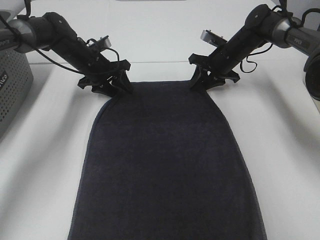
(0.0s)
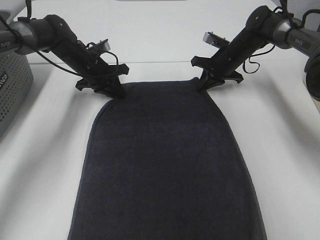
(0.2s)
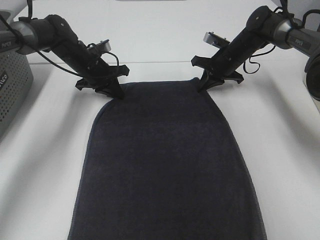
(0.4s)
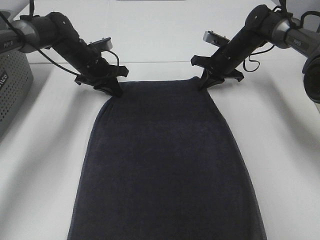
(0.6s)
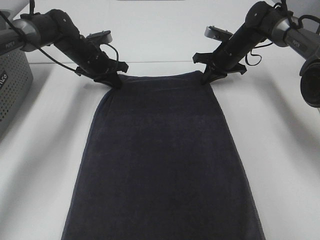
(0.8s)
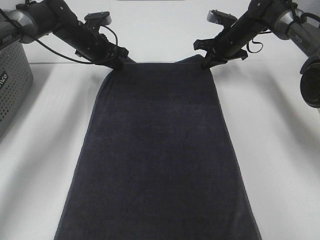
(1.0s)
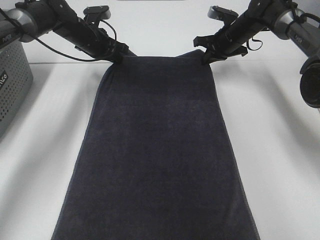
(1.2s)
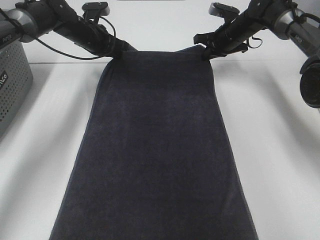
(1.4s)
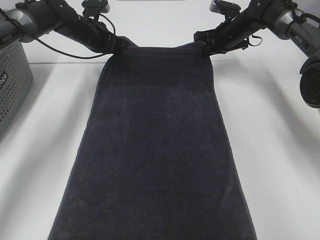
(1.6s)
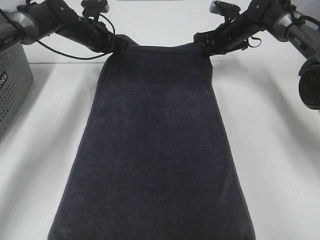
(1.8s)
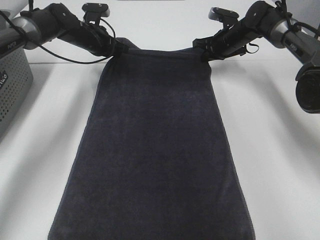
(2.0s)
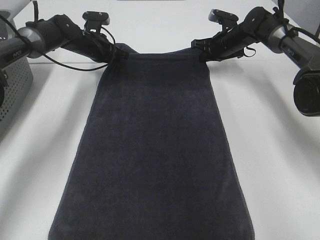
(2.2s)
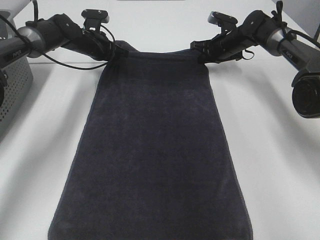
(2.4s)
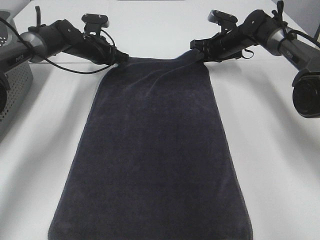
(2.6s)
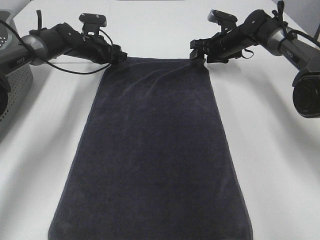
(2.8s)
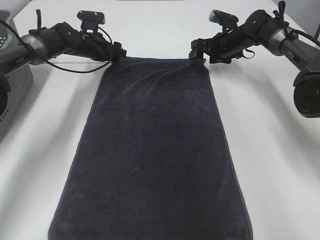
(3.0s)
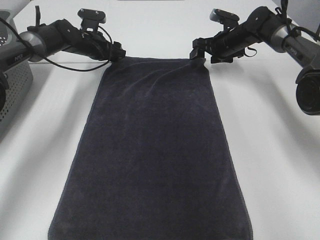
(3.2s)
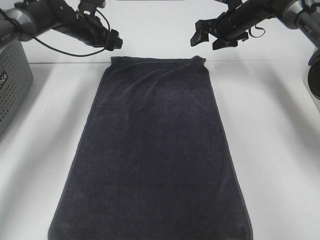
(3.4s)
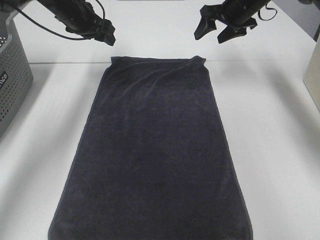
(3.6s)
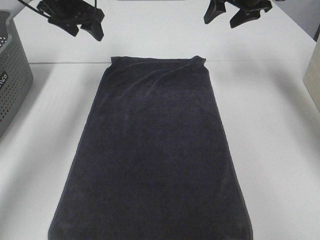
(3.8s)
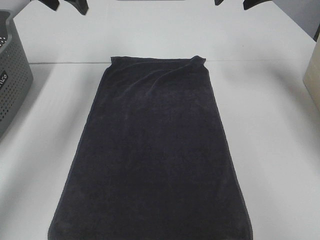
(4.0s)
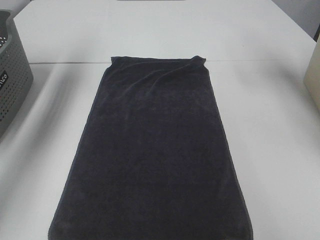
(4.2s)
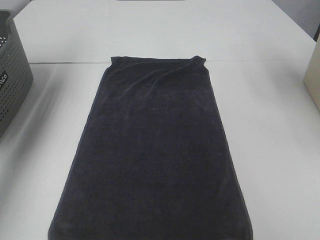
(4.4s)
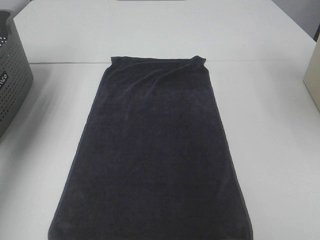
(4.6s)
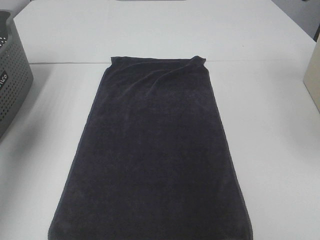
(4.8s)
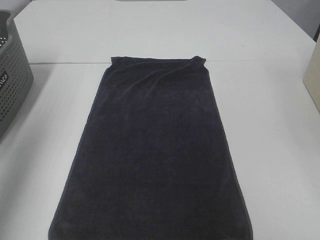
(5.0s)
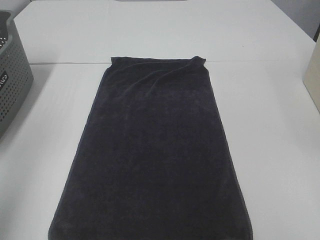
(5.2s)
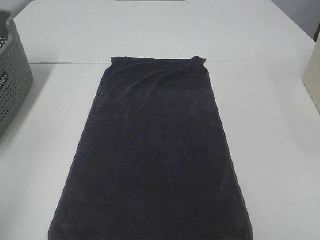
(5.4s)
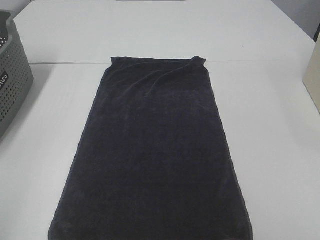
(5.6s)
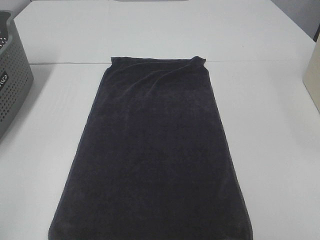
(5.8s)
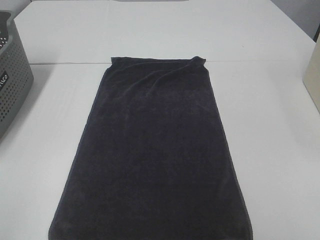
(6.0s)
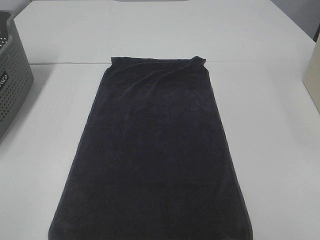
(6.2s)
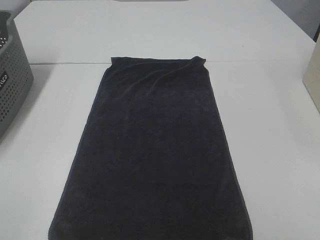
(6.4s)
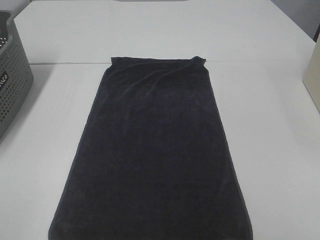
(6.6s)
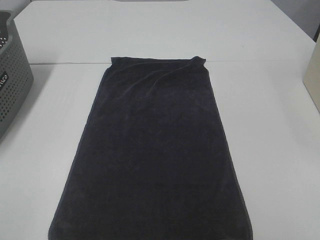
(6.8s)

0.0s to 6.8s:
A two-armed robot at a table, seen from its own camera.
Task of the whole recording: Remove the towel and place it.
0.0s to 1.4s: The right gripper moves about 5 cm, and closes its fingers; the left gripper moves upward, about 5 cm, and closes up.
1.4s to 2.8s: The left gripper shifts by some 5 cm, and opens; the right gripper opens up.
2.8s to 4.0s: Both grippers move upward, some 20 cm.
4.0s to 5.4s: The grippers both shift backward by approximately 50 cm.

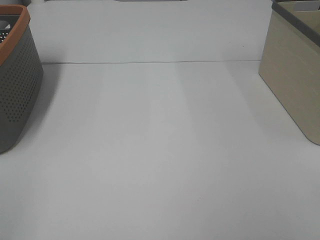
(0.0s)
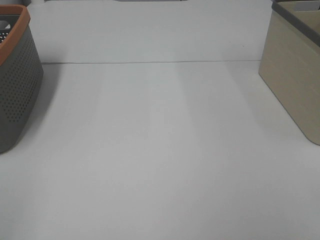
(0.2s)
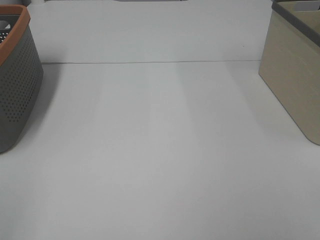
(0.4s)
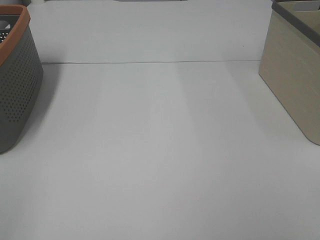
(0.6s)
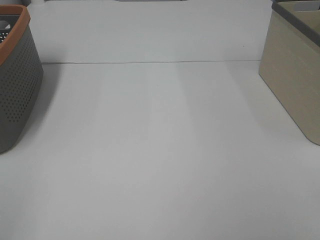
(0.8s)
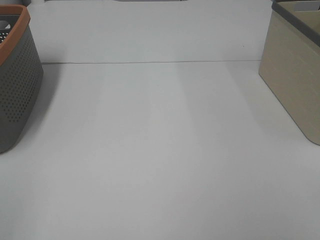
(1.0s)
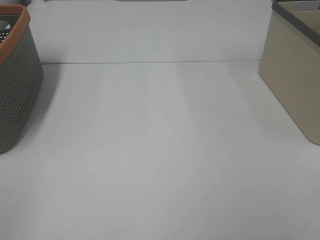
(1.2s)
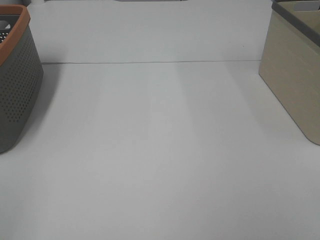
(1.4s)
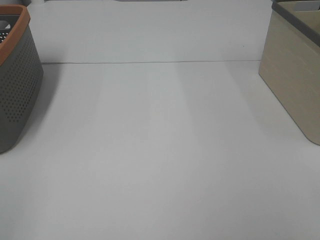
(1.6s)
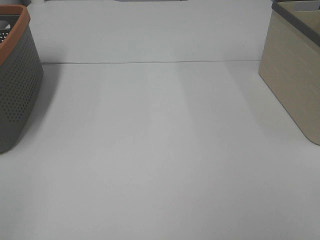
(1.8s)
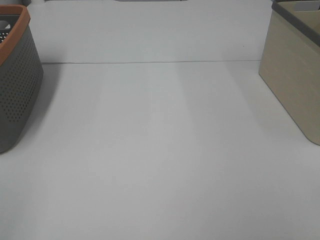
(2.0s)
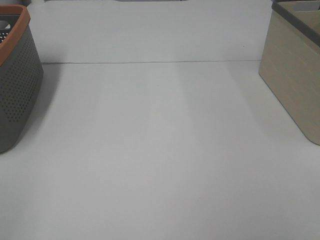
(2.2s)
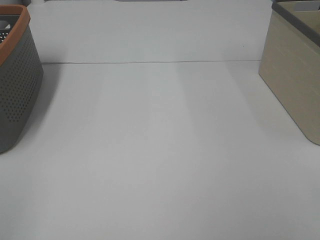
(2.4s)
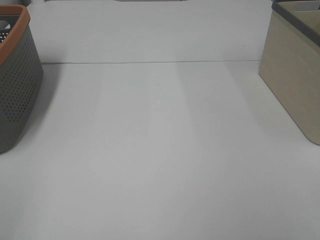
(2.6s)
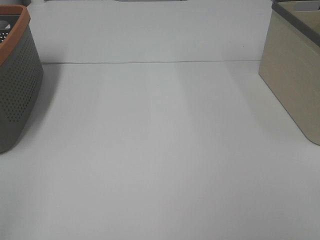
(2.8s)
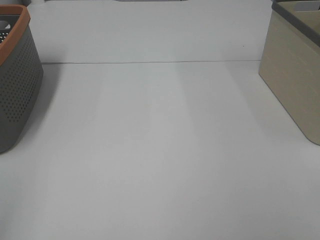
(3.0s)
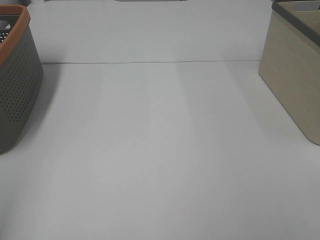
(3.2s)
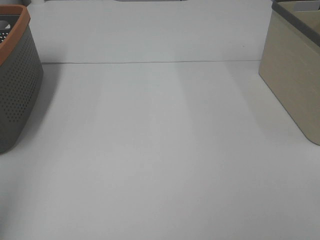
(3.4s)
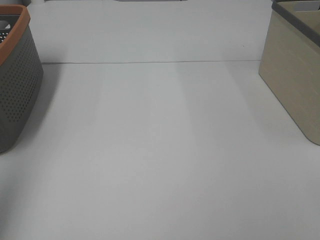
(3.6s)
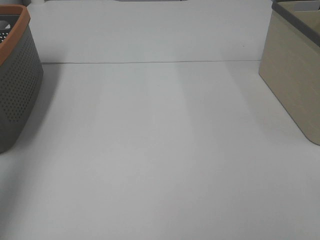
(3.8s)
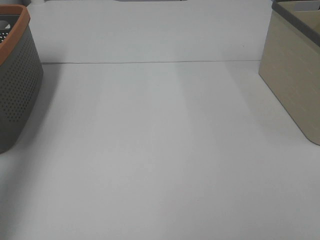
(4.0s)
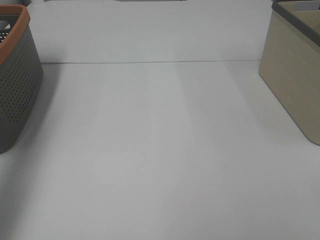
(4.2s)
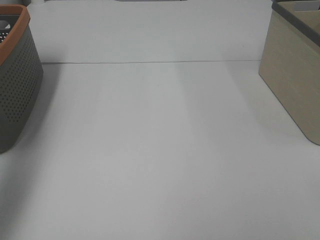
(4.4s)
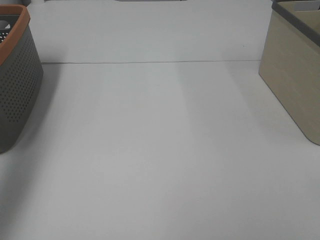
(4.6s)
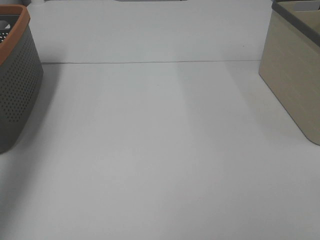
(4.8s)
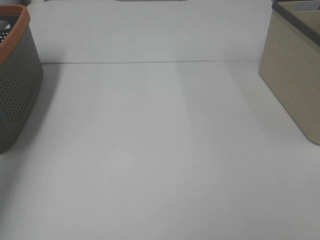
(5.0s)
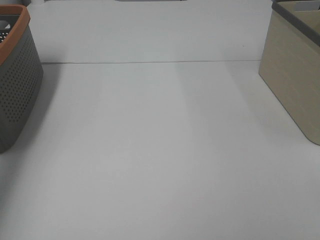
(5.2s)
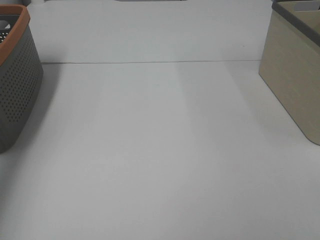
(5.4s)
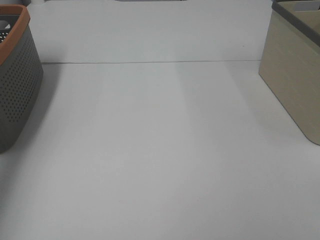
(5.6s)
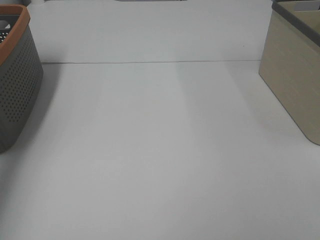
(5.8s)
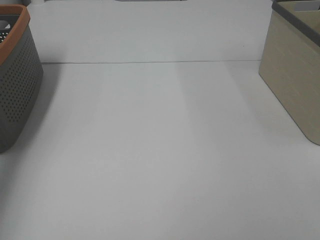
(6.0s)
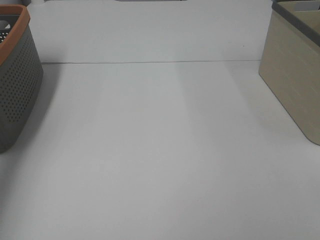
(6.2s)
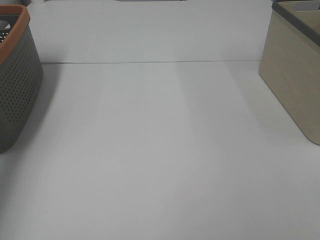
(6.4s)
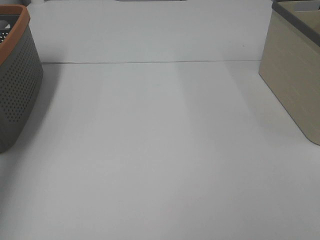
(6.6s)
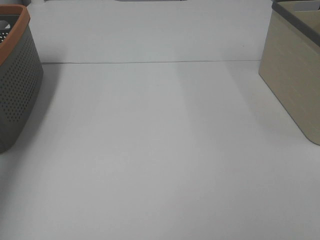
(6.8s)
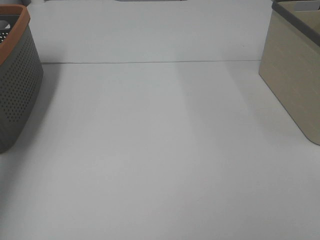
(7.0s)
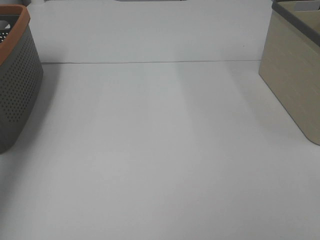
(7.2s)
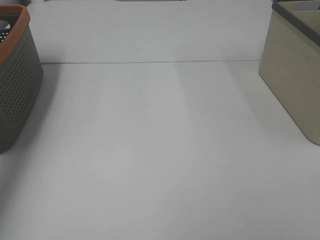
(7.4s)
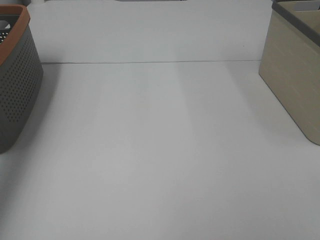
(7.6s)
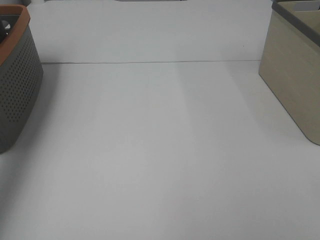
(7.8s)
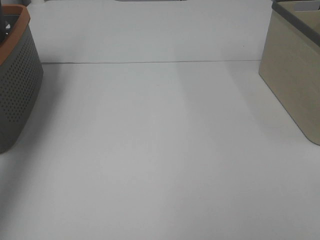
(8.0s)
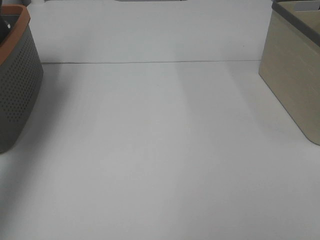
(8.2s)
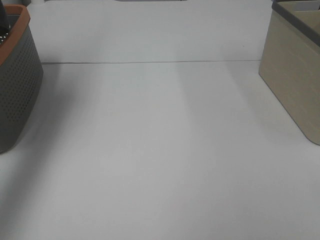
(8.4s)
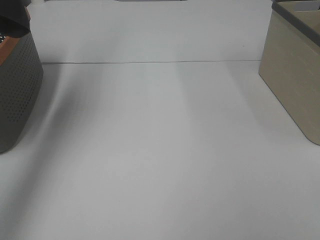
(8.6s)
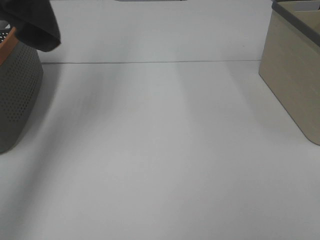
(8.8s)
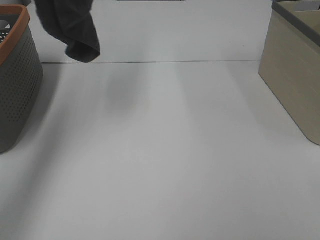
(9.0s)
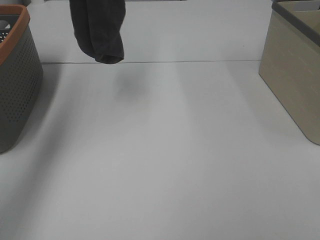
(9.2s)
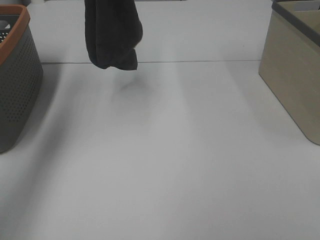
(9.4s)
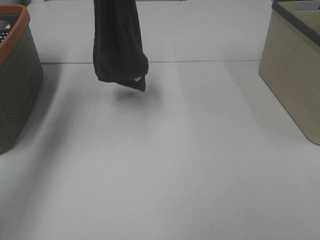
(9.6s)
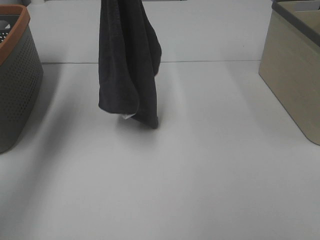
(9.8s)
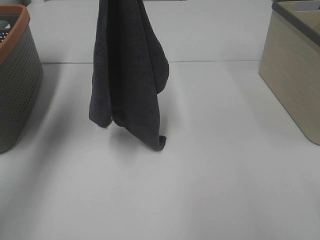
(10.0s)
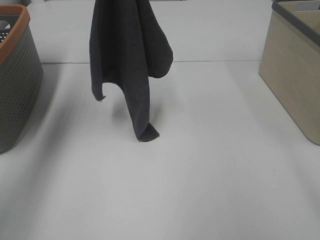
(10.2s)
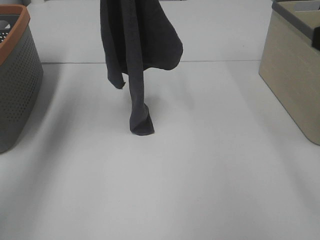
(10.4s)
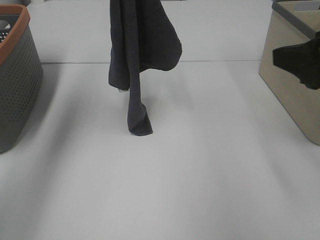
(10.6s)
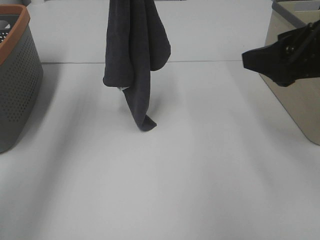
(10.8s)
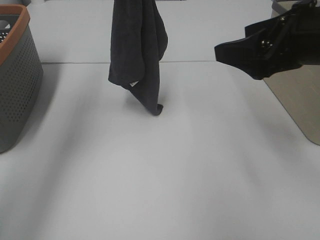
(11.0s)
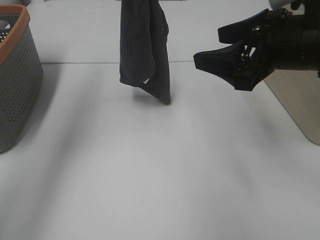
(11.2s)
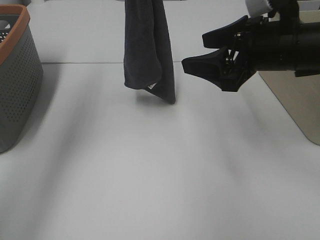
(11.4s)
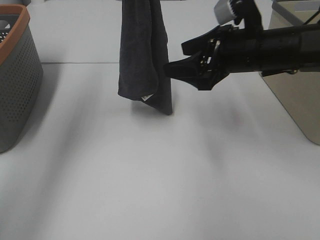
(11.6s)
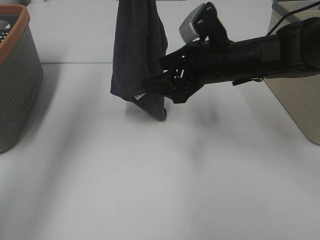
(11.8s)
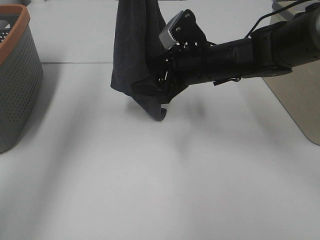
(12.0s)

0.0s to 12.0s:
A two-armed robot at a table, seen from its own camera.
Task of the whole recording: Remove the towel and place it.
Step, 8.6s to 11.6s: Right hand: grab a corner of the grey towel and straighten it.
0.0s to 1.6s: Both grippers stay about where they are.
3.0s to 4.4s: The left gripper shifts roughly 25 cm forward.
4.4s to 6.0s: The left gripper travels downward and forward by some 15 cm.
7.6s to 9.0s: The left gripper travels upward and to the right by some 20 cm.
9.0s to 10.4s: The right gripper travels forward by some 15 cm. The left gripper shifts roughly 10 cm downward.
10.4s to 12.0s: The right gripper travels forward, to the left and downward by roughly 30 cm.

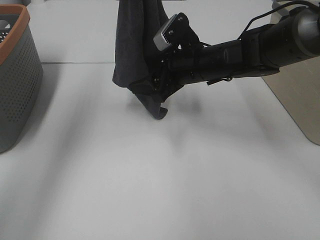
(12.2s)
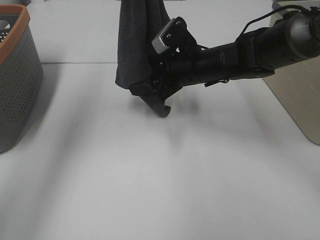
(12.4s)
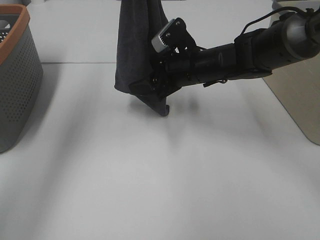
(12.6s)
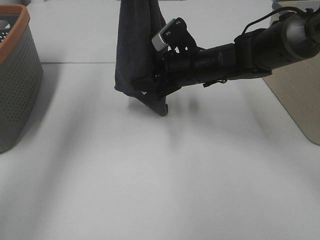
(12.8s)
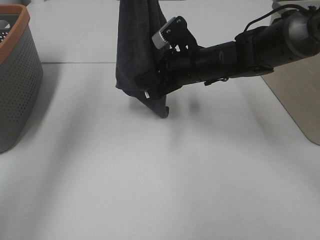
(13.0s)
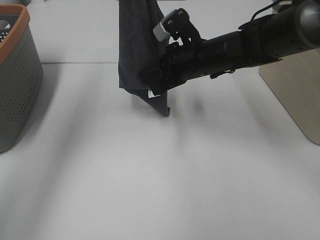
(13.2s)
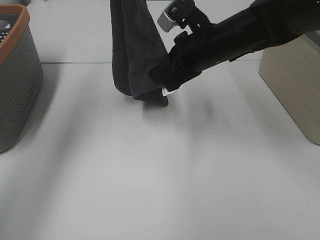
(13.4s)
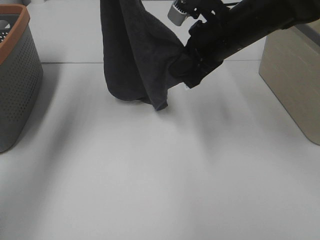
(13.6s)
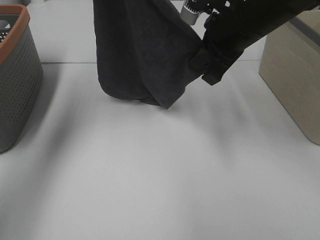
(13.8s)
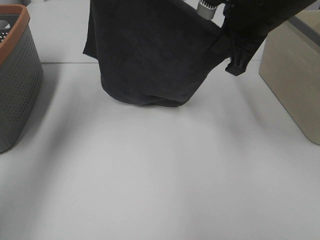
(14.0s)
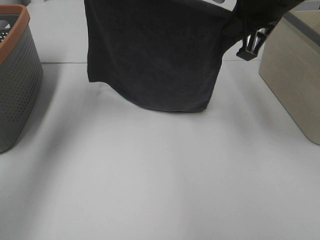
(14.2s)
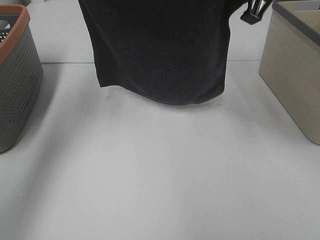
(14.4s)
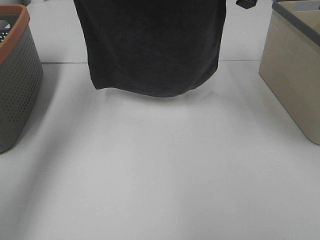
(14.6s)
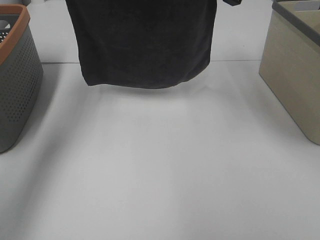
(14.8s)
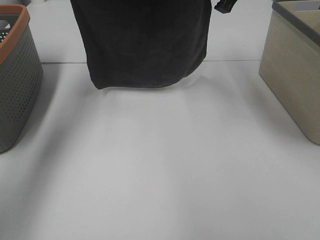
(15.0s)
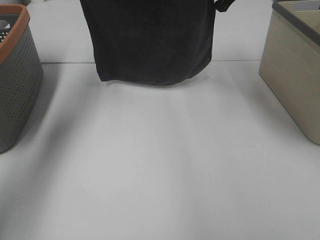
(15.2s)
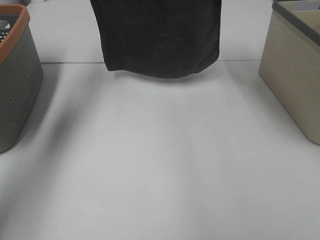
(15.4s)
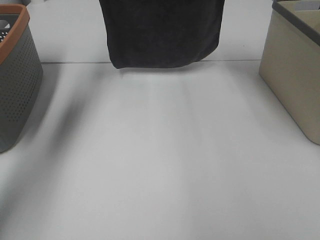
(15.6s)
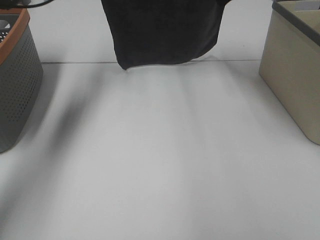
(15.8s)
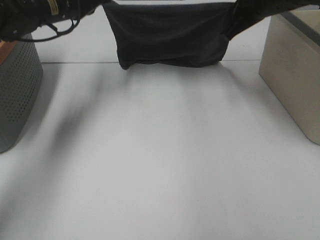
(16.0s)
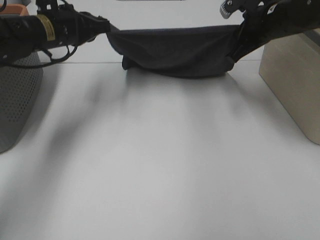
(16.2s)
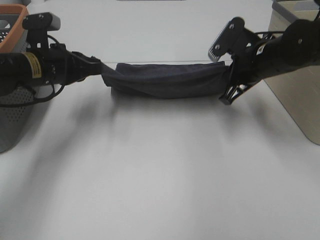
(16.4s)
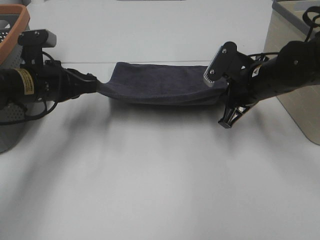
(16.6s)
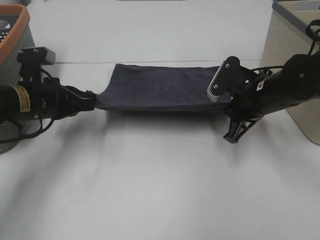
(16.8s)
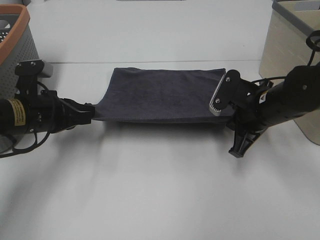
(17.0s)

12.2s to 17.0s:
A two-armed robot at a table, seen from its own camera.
Task of the whole recording: Remove the towel and place it.
Step, 12.2s to 14.0s: Left hand: spread the grey towel flat on the table.
Step, 12.2s to 14.2s: Right hand: spread the grey towel flat on the table.
12.2s to 13.8s: The left gripper changes place by roughly 5 cm. Meanwhile the right gripper moves upward, roughly 10 cm, and closes its fingers.
13.8s to 15.4s: The left gripper travels downward and forward by about 10 cm; the right gripper shifts roughly 15 cm forward and upward.
15.4s to 17.0s: Both grippers move downward and backward, some 25 cm.
